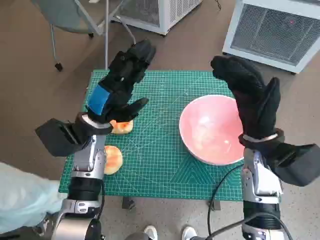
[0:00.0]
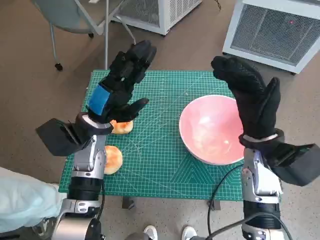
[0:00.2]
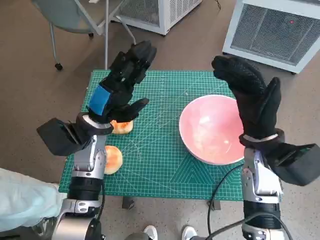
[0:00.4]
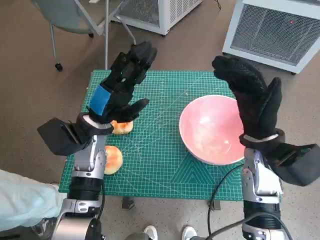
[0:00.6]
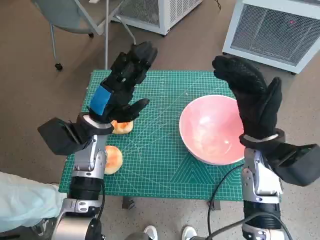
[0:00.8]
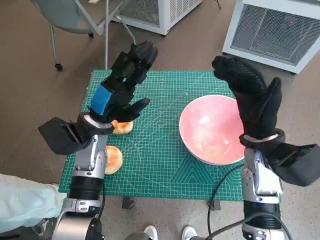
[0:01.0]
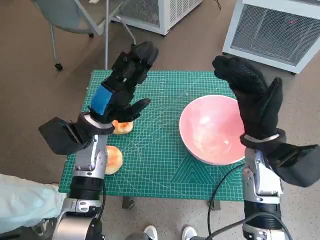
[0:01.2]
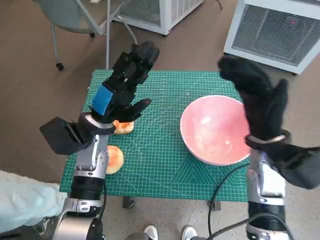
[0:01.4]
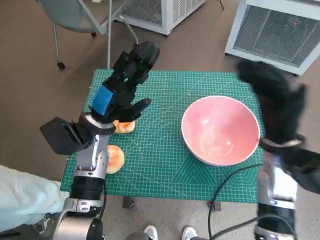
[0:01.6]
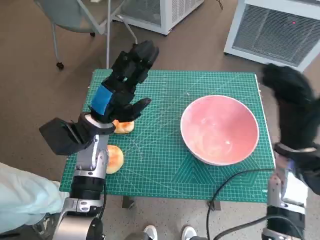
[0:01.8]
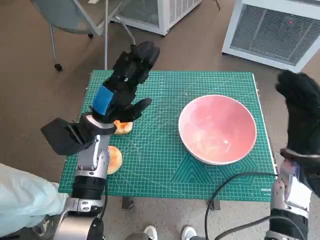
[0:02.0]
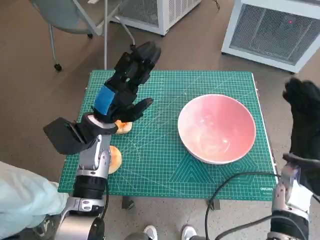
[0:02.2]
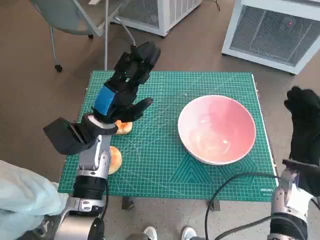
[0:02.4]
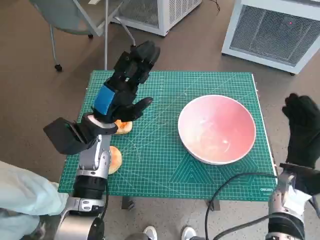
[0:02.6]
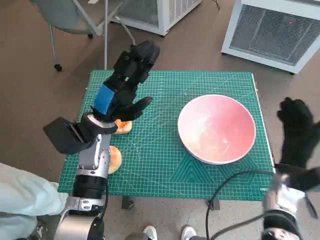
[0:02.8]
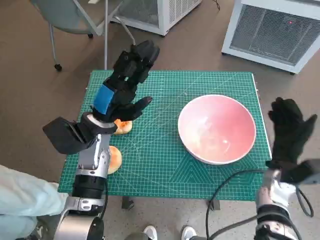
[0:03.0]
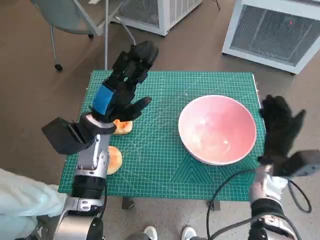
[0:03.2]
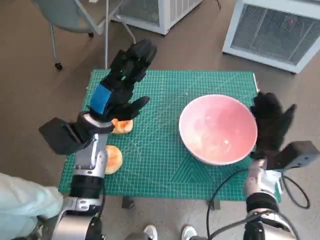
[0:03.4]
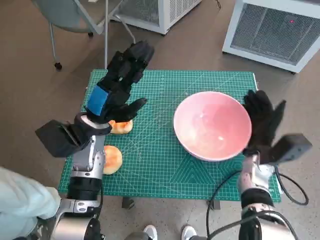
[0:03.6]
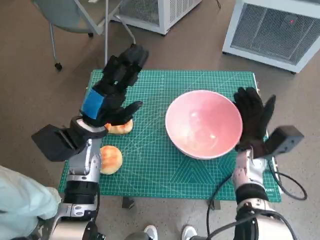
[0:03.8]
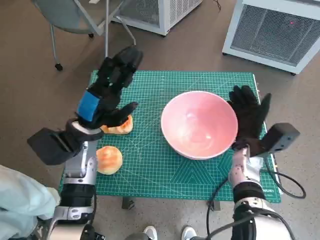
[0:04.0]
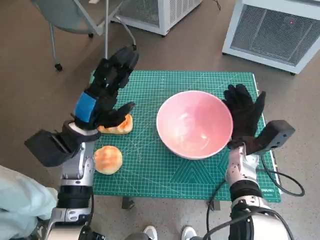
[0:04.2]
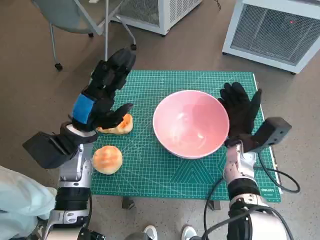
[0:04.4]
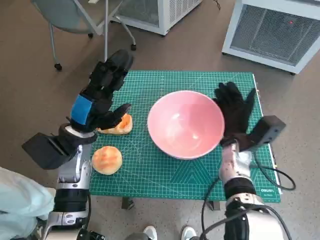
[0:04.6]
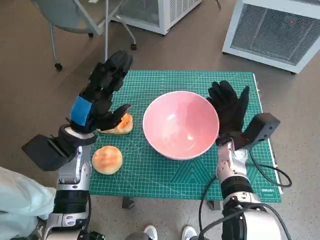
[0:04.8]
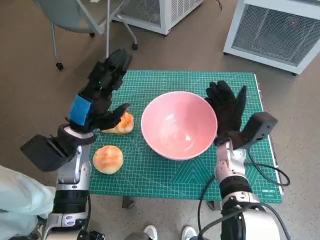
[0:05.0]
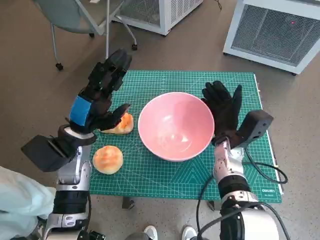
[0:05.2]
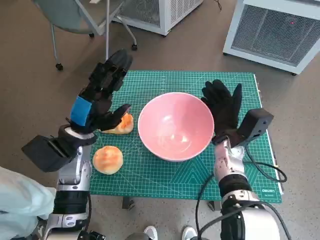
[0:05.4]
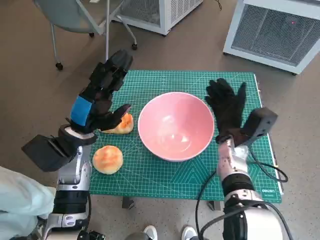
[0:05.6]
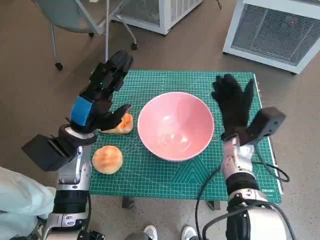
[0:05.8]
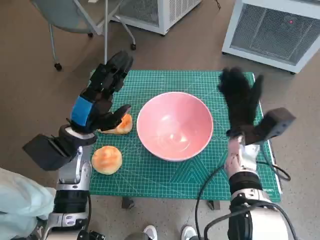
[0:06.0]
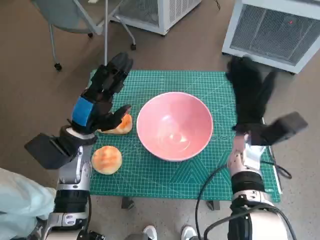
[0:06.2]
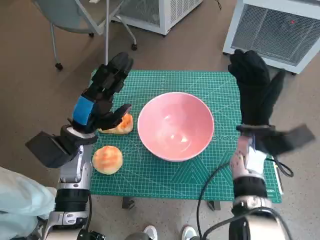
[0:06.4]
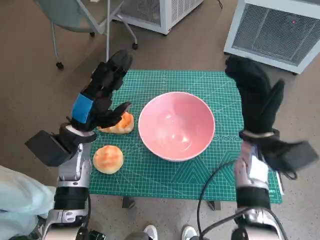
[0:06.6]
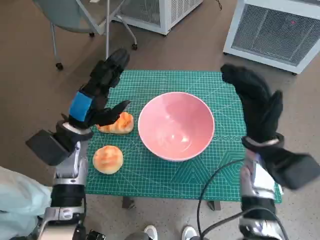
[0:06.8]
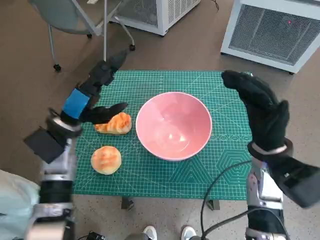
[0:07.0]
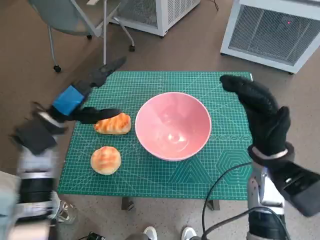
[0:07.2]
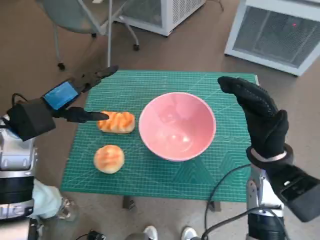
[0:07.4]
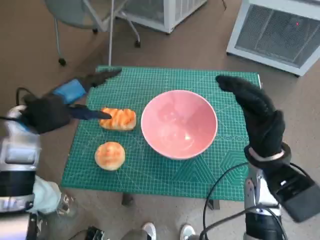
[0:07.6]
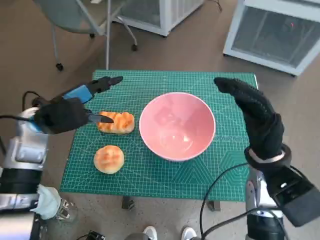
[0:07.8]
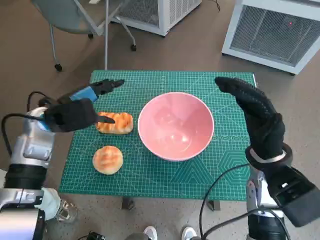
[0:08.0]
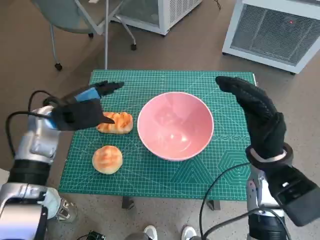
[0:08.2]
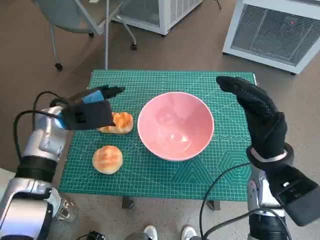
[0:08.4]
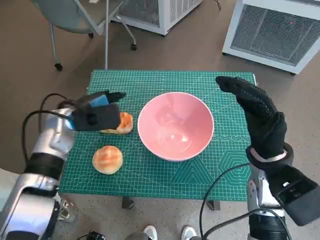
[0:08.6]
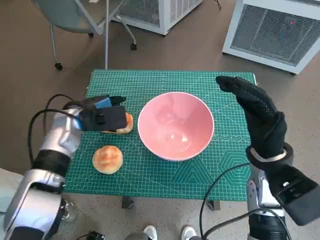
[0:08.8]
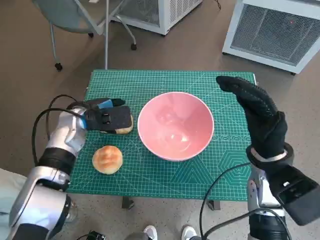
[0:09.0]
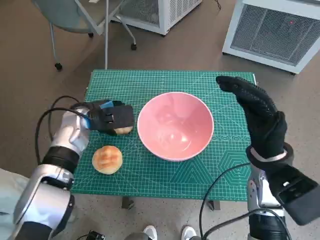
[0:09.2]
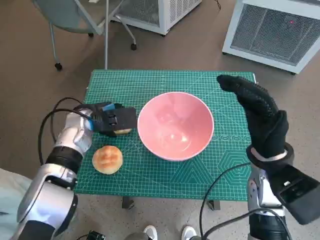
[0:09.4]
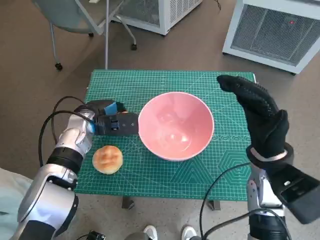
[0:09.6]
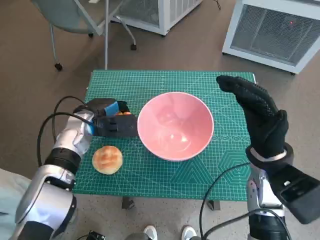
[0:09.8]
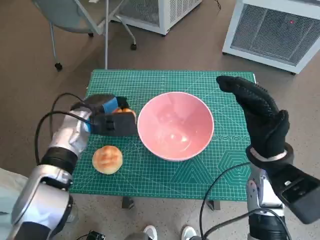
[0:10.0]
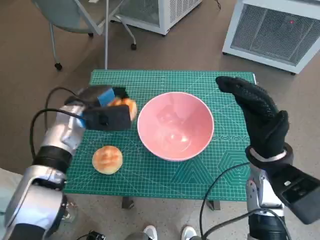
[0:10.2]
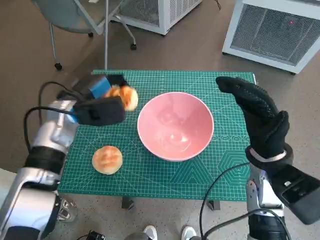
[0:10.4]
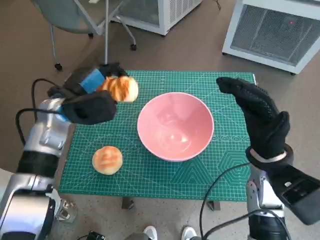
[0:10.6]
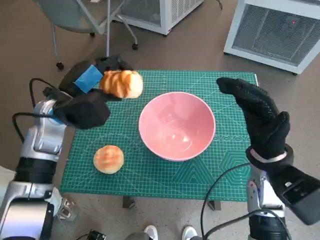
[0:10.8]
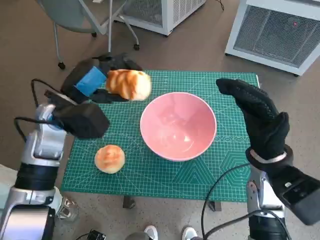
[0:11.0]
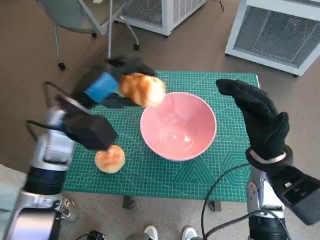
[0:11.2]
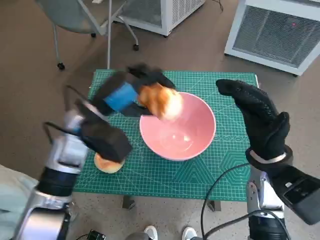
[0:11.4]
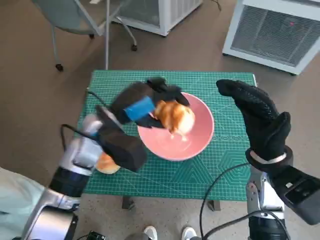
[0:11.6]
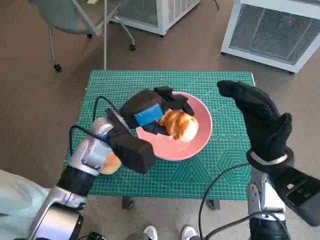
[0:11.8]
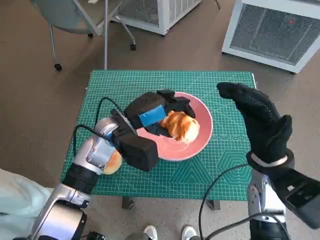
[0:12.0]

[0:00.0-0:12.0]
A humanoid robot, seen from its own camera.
Task of the whole recording: Push the bowl into the center of the table and put the bread into the bowl.
Step, 0:00.0 to 0:05.4: Move the pink bowl to the center of table with right hand.
Step, 0:05.8 to 0:09.4: Grasp the long bread with left hand.
0:01.6 to 0:03.0: The right hand is displaced downward by roughly 10 cm.
0:03.0 to 0:04.4: The right hand is displaced to the left by about 10 cm.
0:04.4 to 0:06.0: The hands stay close to where they were, moving slightly.
0:06.0 to 0:07.6: The right hand is displaced backward and upward by roughly 10 cm. Meanwhile the left hand shifts approximately 10 cm upward and to the left.
0:07.6 to 0:09.0: The left hand shifts approximately 10 cm downward and forward.
0:10.4 to 0:12.0: The left hand travels to the right by roughly 10 cm.

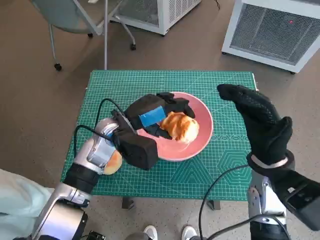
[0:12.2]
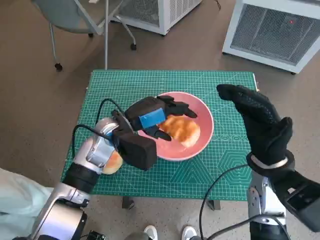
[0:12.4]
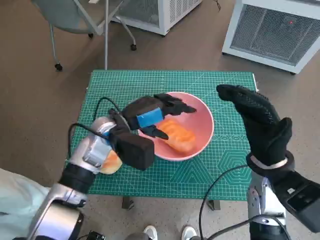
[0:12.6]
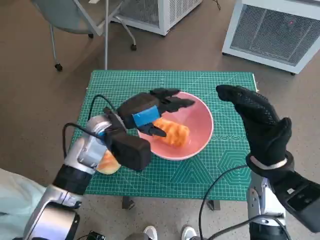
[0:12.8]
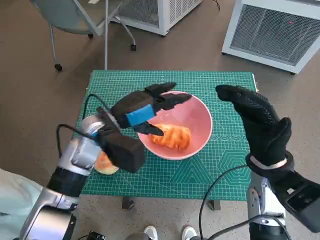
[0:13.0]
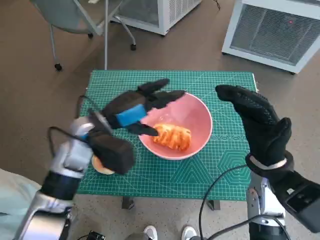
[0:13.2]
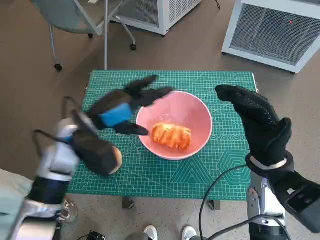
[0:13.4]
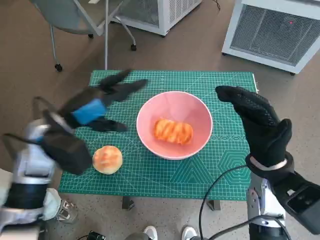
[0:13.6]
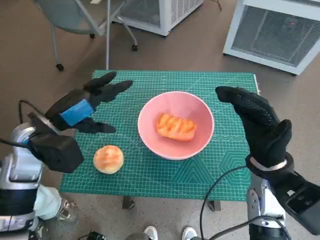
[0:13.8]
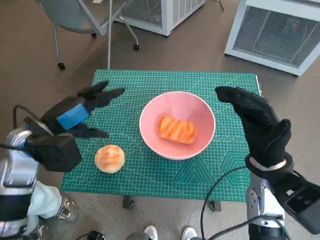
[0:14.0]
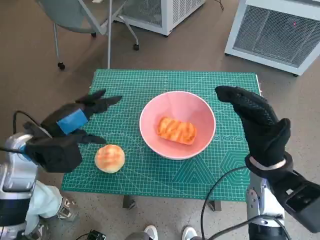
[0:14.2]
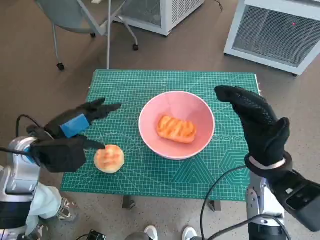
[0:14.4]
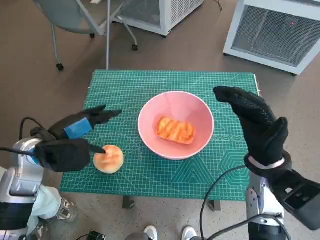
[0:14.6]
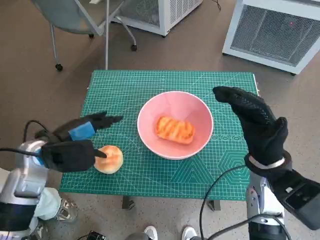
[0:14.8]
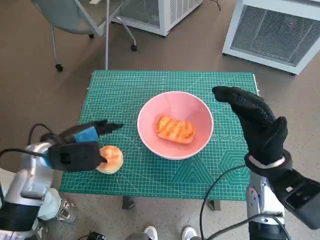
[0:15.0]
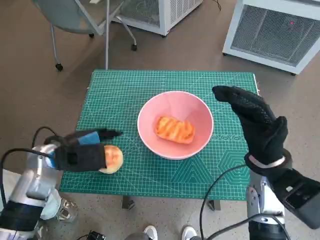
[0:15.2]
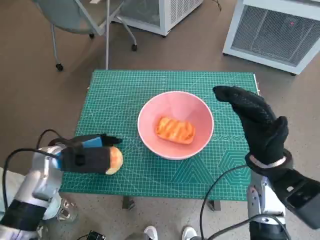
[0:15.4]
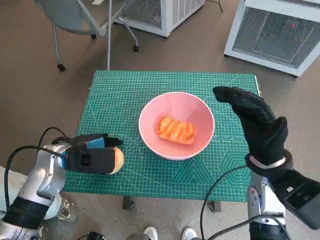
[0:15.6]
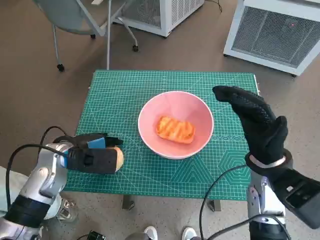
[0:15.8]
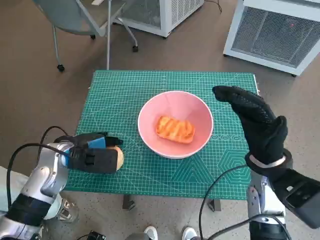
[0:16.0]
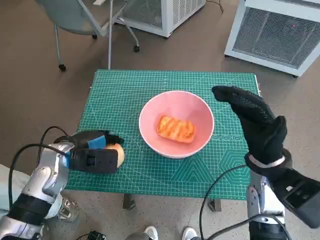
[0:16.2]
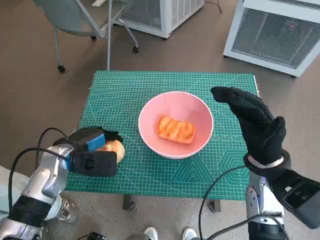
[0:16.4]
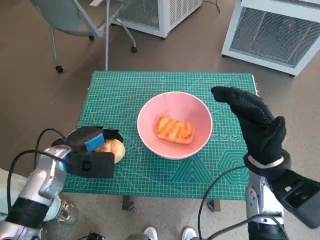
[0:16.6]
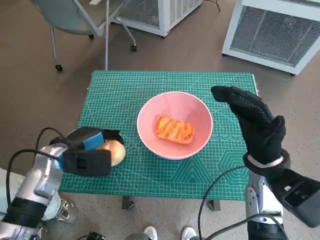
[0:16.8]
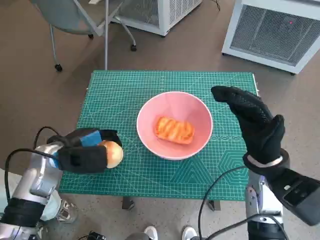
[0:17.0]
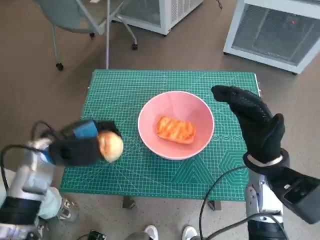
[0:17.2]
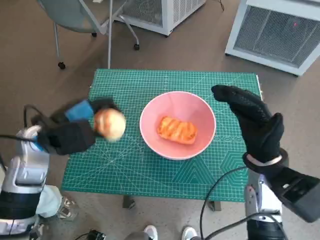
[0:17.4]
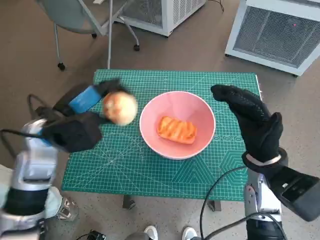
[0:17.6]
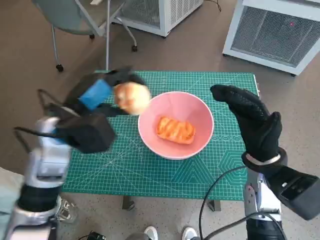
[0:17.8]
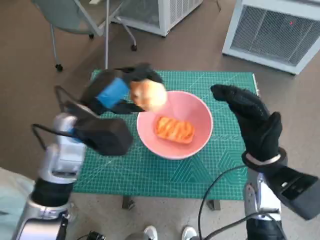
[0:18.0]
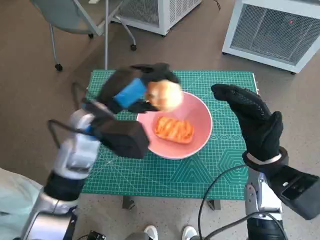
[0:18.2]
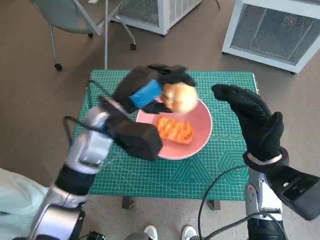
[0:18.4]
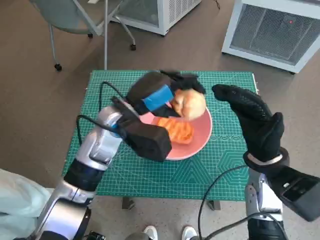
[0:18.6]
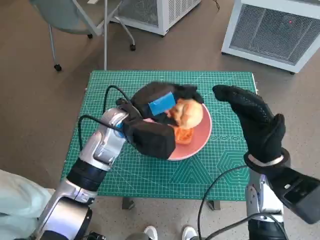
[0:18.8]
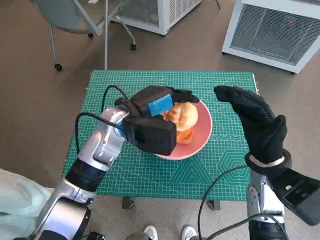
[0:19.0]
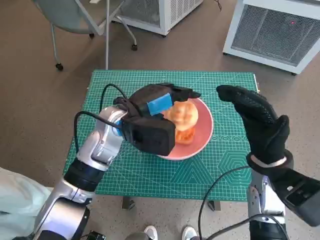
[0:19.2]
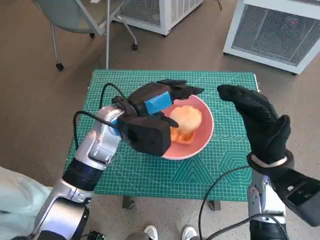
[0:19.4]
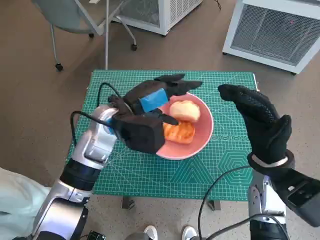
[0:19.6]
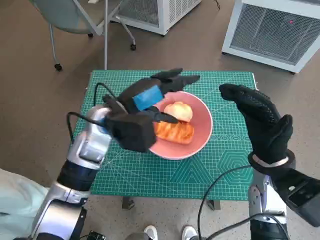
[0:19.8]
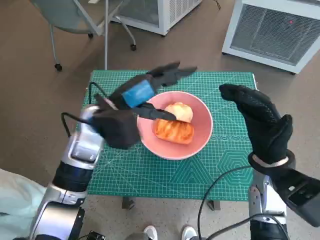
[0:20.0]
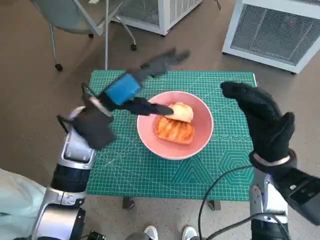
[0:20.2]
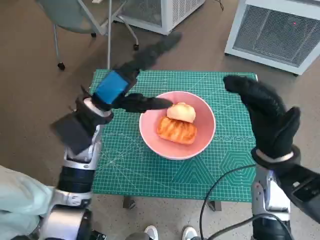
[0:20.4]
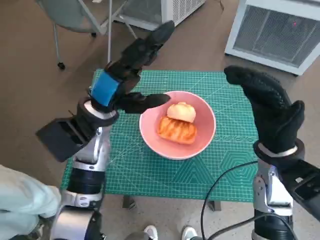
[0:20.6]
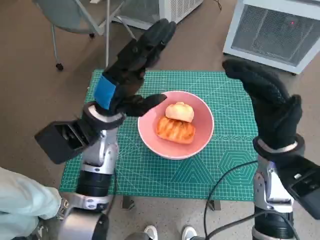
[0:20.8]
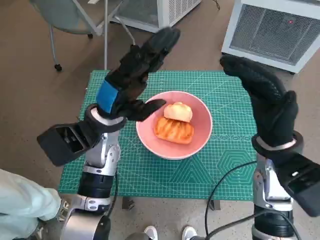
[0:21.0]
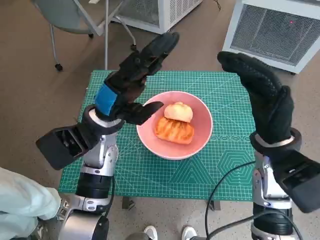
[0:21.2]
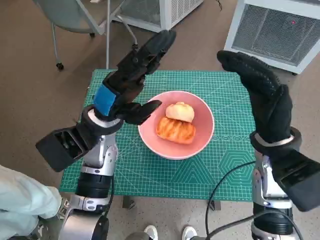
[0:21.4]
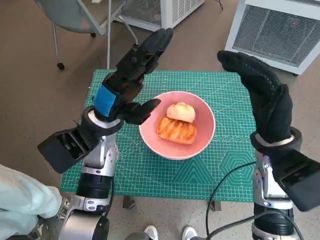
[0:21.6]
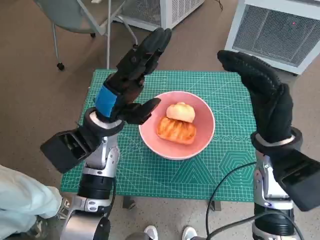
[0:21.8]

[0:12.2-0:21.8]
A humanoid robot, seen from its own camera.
Task of the whole recording: Push the bowl into the center of the table and put the bread into the bowl.
Step, 0:12.6 to 0:15.4: Grasp the round bread with left hand.
Step, 0:15.8 to 0:19.2: Place the round bread in pink bowl with left hand.
0:12.2 to 0:13.8: The left hand shifts approximately 10 cm to the left.
0:13.8 to 0:15.4: The left hand heads downward, covering about 5 cm.
0:15.4 to 0:17.0: The hands make only small movements.
0:17.0 to 0:18.6: The left hand shifts some 15 cm to the right and upward.
